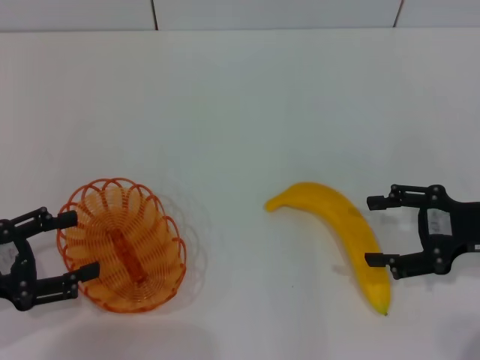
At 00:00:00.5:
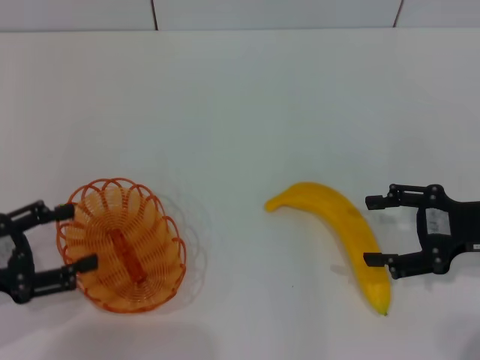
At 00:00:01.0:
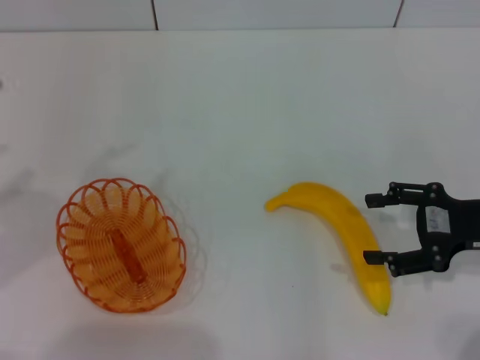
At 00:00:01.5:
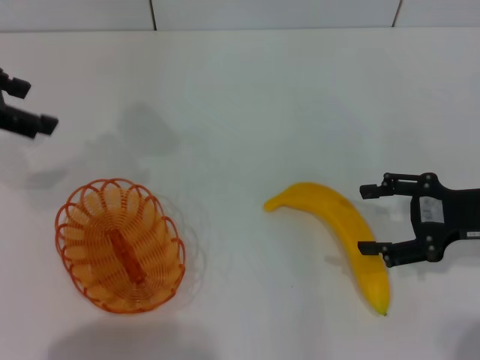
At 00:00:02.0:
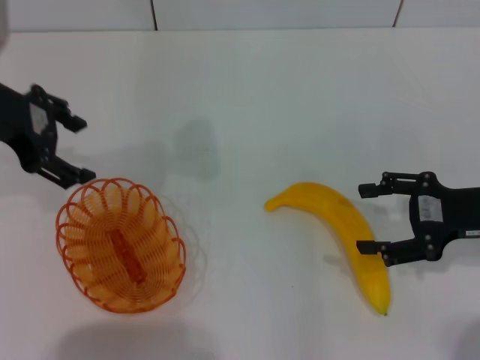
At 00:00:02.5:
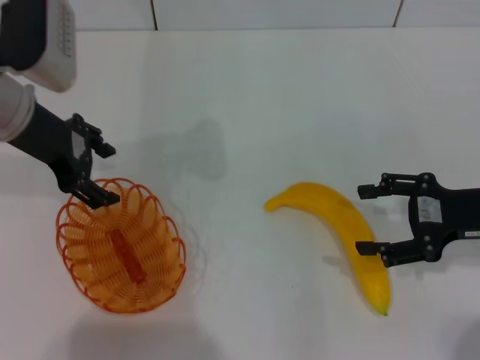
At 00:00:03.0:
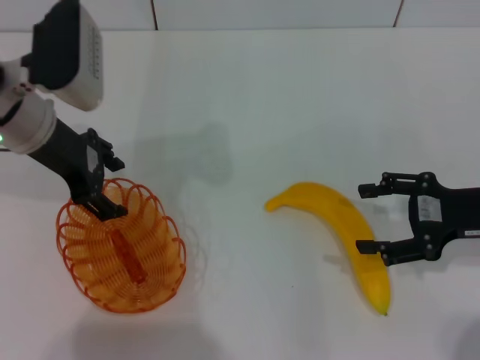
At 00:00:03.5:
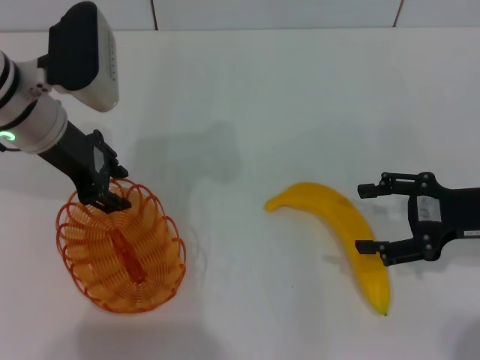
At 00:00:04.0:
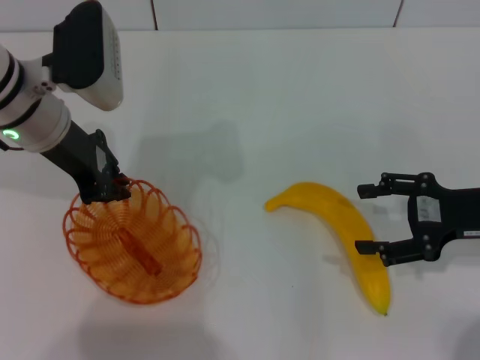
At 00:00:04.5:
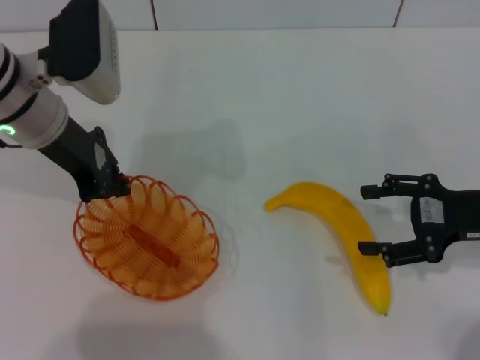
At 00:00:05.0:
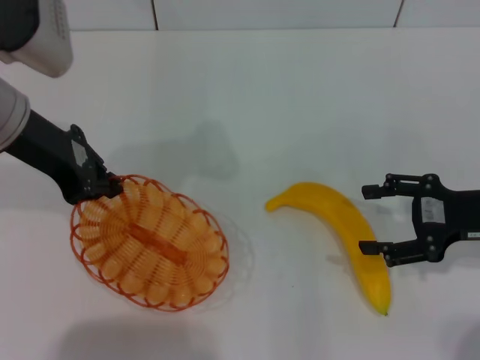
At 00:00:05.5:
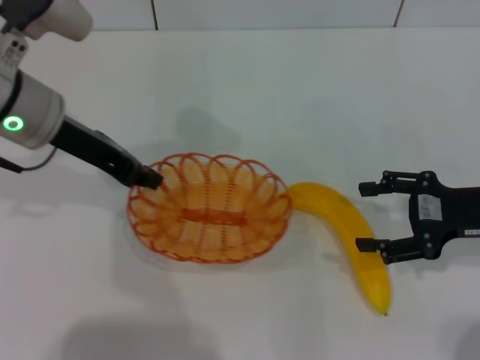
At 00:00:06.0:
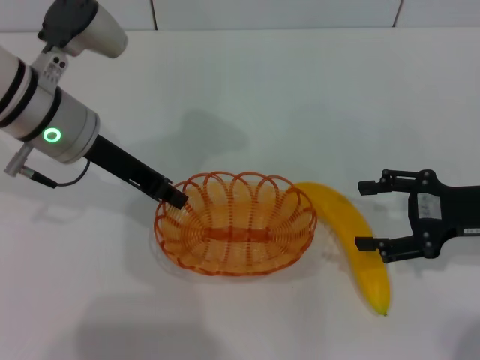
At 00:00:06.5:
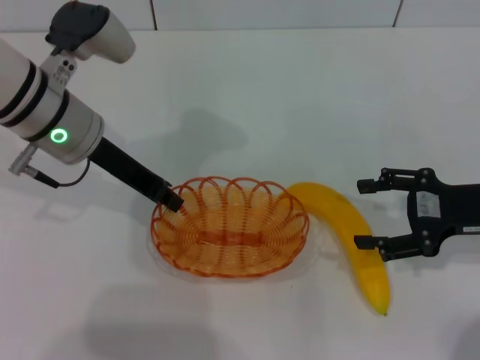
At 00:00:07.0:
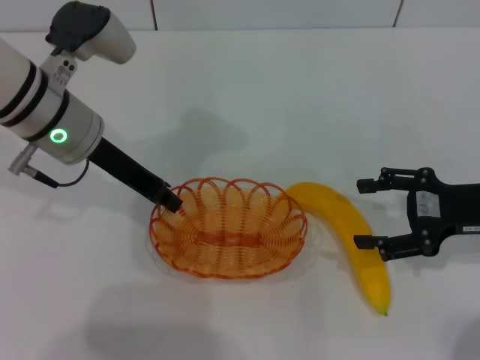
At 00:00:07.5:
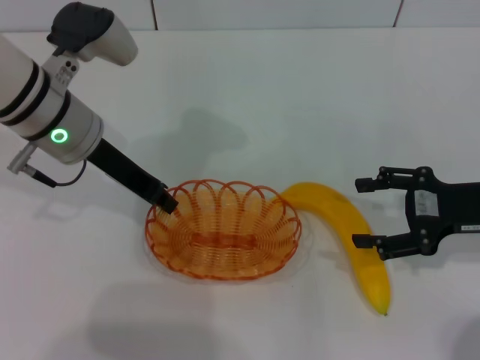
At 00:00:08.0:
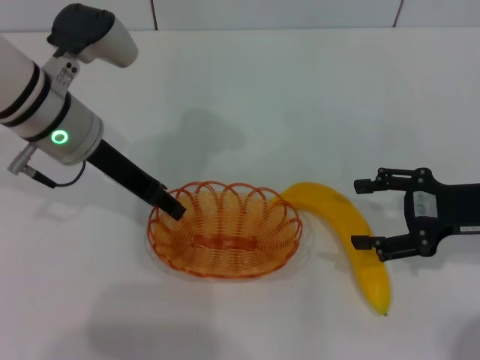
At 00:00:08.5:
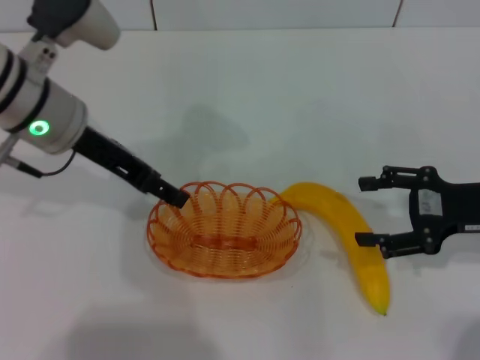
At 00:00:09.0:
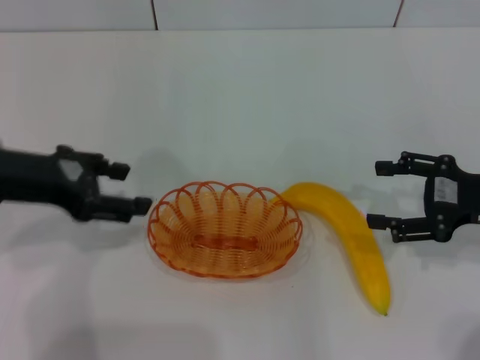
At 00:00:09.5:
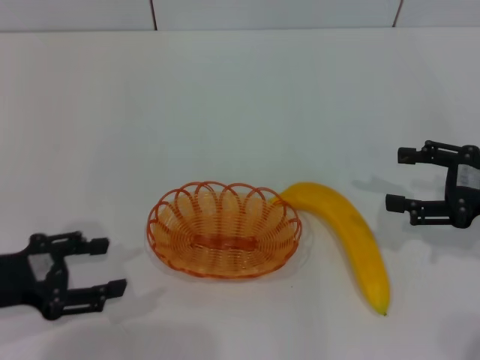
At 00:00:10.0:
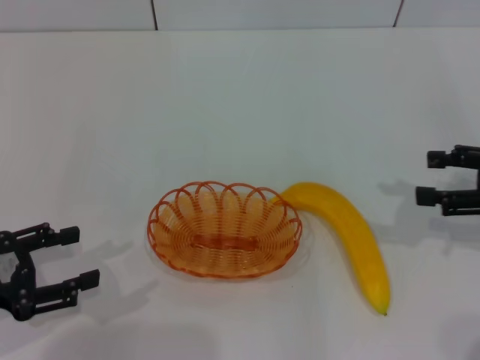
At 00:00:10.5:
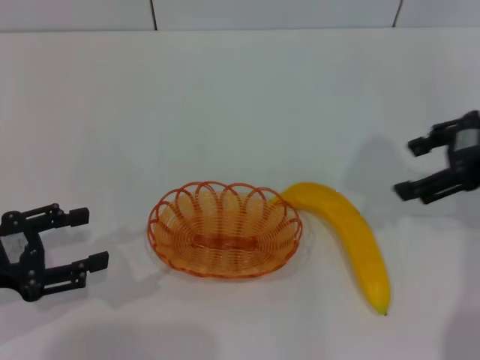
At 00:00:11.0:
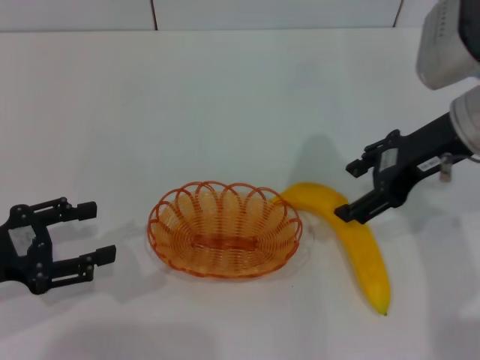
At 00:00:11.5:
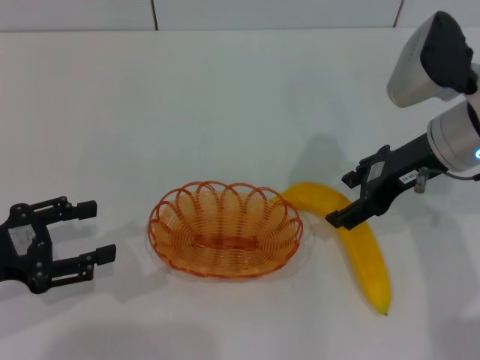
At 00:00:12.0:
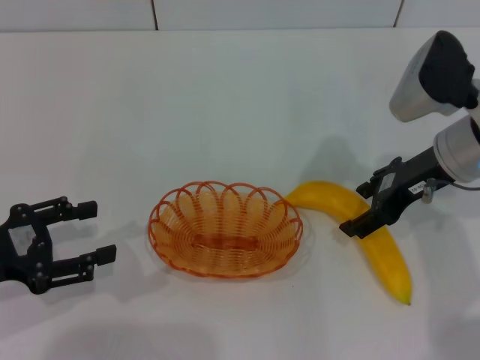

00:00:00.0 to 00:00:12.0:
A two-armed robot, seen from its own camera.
Step, 00:00:00.0 to 00:00:05.0: Pick up the basket with the left gripper.
Step, 00:00:05.5 to 00:00:08.5: Place the basket in the center of view with the left gripper.
00:00:00.0 to 00:00:02.0: The left gripper goes some 20 cm forward, upward and to the right.
00:00:02.0 to 00:00:04.0: The left gripper moves downward and to the right, approximately 10 cm, and closes.
00:00:04.0 to 00:00:06.0: The left gripper closes up.
00:00:06.0 to 00:00:08.0: The grippers stay close to where they were, moving slightly.
00:00:08.0 to 00:00:10.0: The right gripper is displaced to the right by approximately 5 cm. The left gripper goes some 25 cm backward and to the left, and opens up.
00:00:10.0 to 00:00:12.0: The right gripper heads to the left and forward, covering some 15 cm.

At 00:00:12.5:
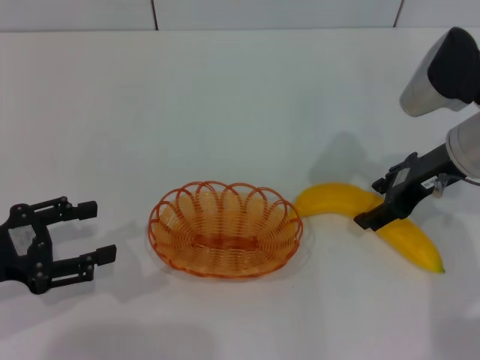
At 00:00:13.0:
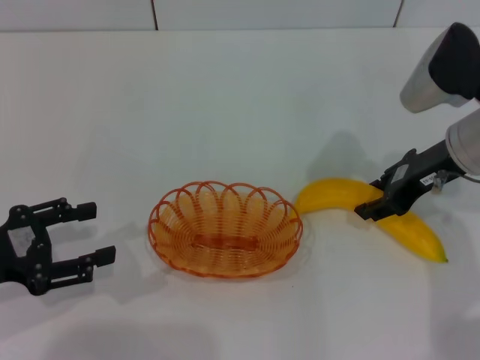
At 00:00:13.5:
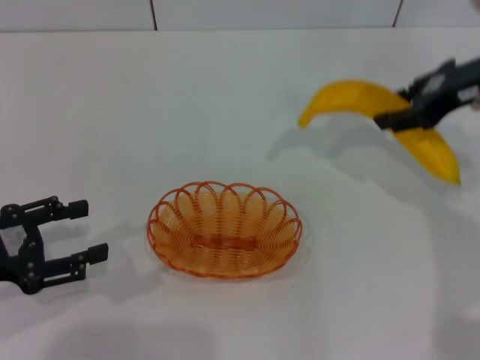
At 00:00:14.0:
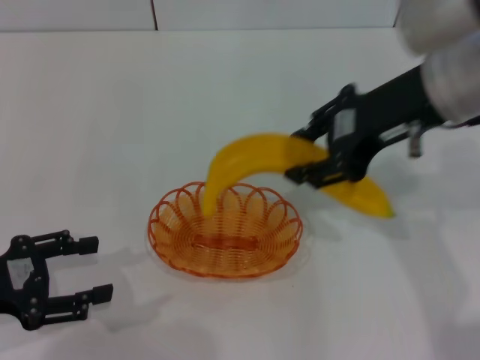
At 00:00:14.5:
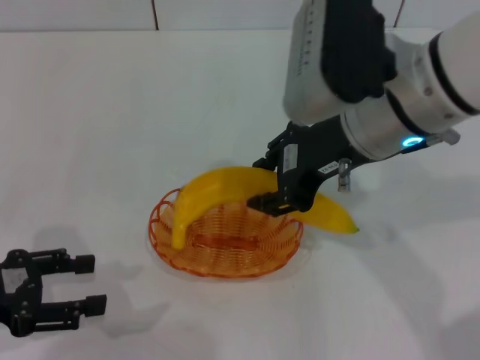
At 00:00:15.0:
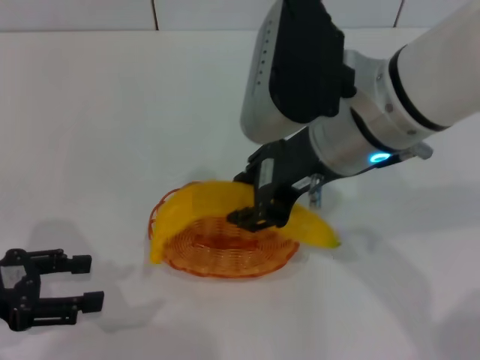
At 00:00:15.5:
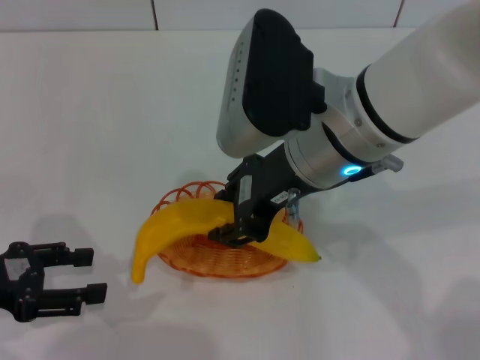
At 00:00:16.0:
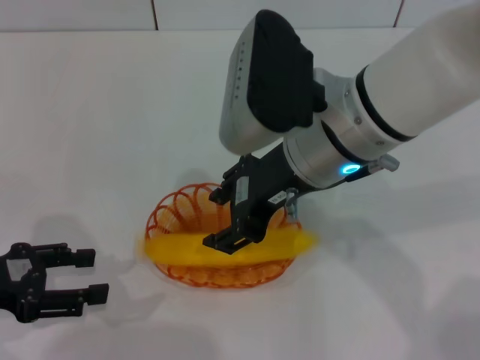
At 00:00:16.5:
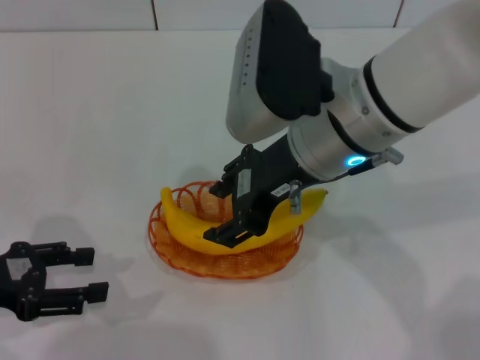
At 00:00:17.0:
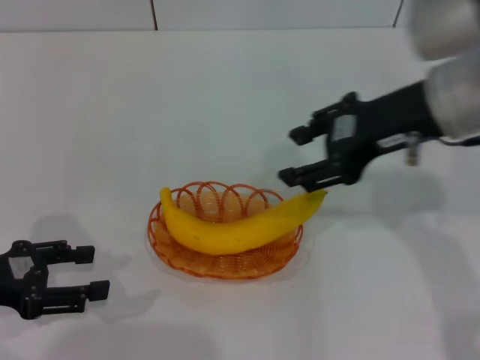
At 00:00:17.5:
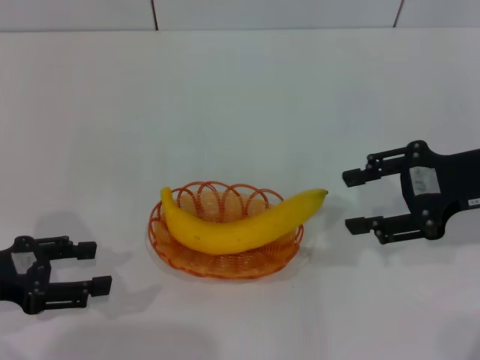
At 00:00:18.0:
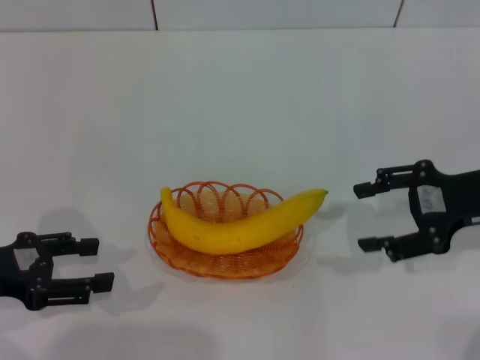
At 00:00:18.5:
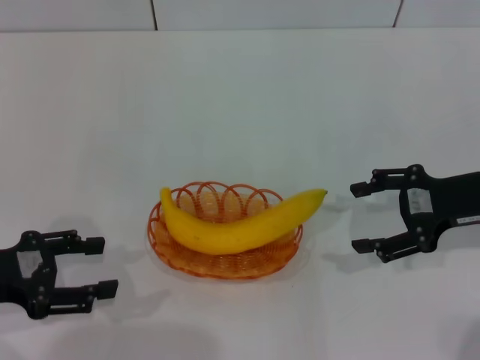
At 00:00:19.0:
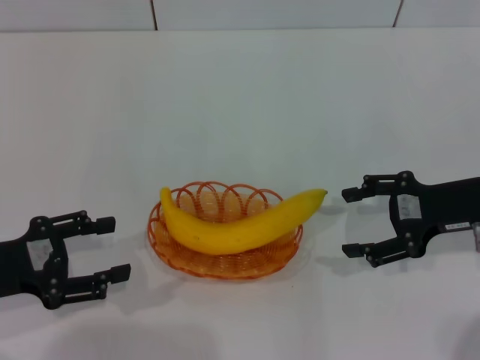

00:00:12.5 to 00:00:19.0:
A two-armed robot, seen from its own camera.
Step, 00:00:13.5 to 00:00:16.5: Place the banana into the basket with the right gripper.
00:00:12.5 to 00:00:14.5: The right gripper shifts about 15 cm to the left and upward, and closes up.
00:00:14.5 to 00:00:17.0: The right gripper is displaced to the right by some 5 cm, and opens up.
00:00:17.0 to 00:00:19.0: The right gripper travels downward and to the right by some 15 cm, and opens its fingers.
